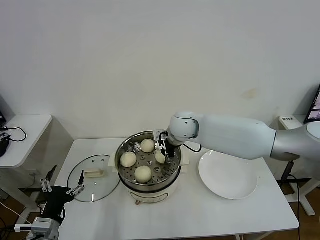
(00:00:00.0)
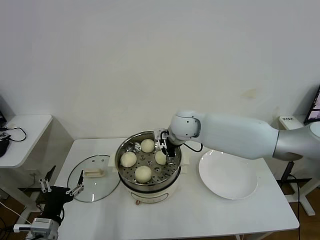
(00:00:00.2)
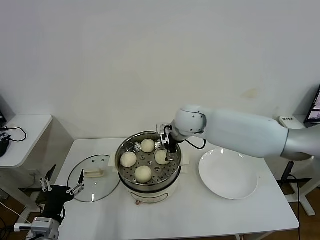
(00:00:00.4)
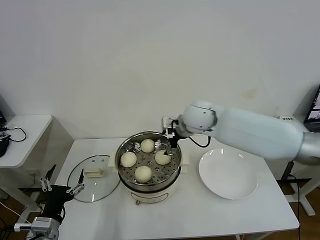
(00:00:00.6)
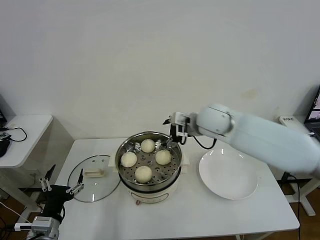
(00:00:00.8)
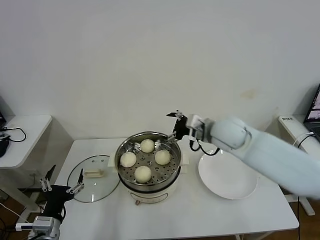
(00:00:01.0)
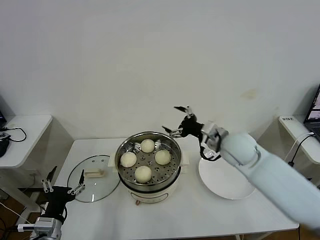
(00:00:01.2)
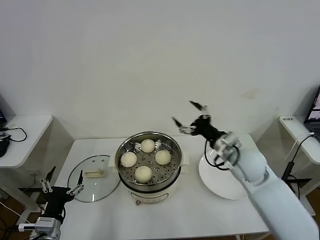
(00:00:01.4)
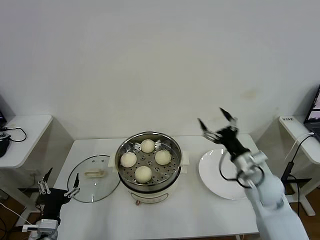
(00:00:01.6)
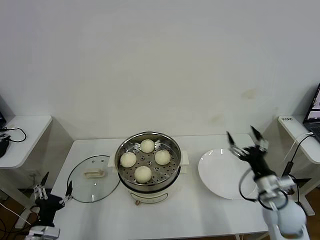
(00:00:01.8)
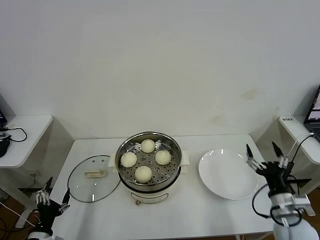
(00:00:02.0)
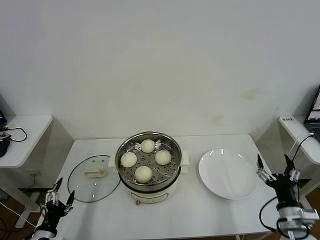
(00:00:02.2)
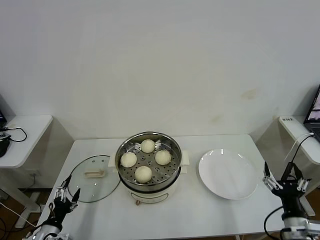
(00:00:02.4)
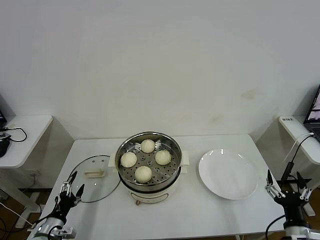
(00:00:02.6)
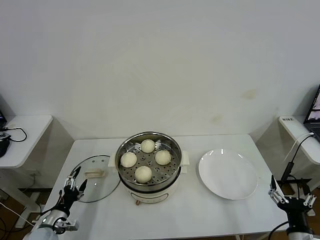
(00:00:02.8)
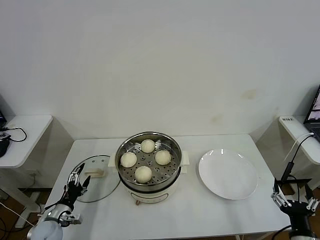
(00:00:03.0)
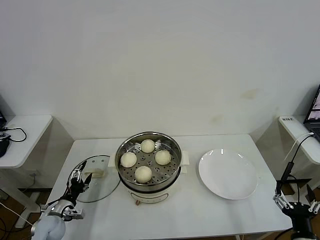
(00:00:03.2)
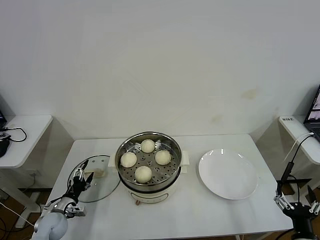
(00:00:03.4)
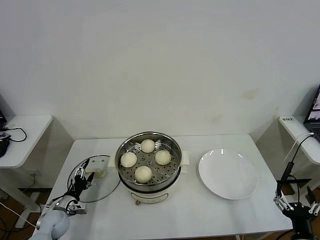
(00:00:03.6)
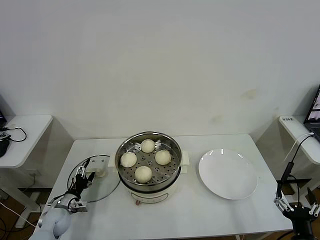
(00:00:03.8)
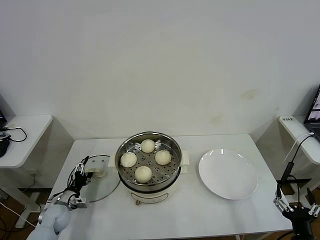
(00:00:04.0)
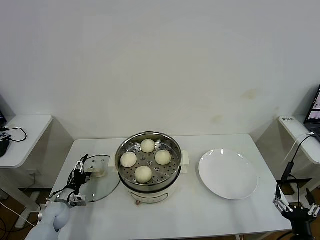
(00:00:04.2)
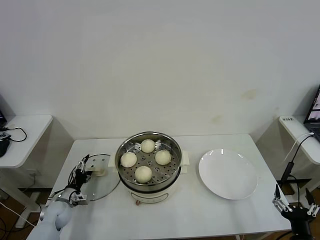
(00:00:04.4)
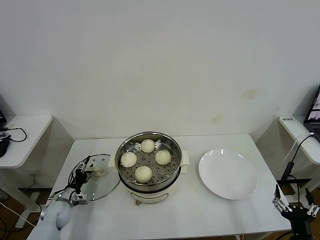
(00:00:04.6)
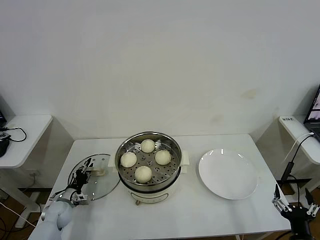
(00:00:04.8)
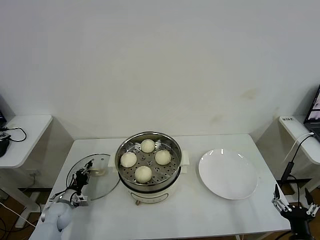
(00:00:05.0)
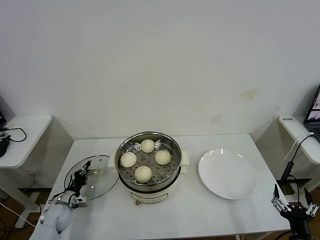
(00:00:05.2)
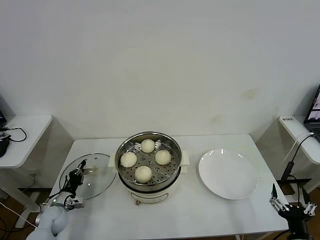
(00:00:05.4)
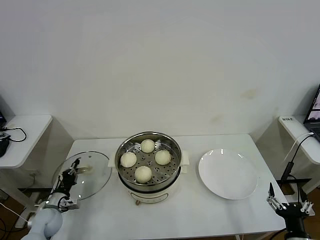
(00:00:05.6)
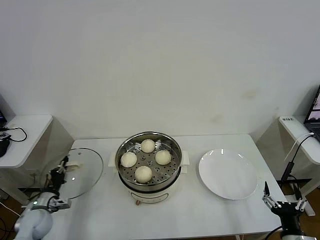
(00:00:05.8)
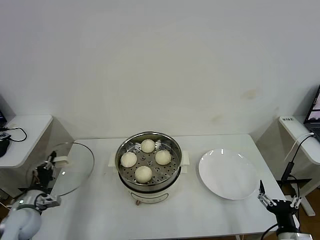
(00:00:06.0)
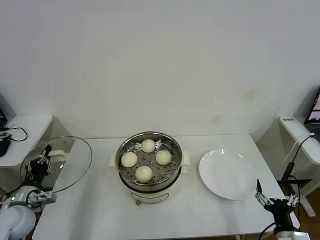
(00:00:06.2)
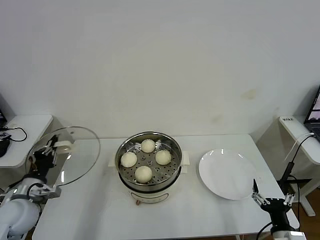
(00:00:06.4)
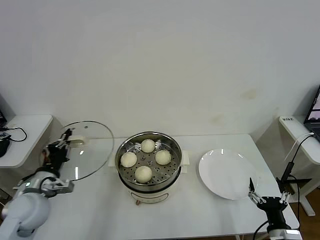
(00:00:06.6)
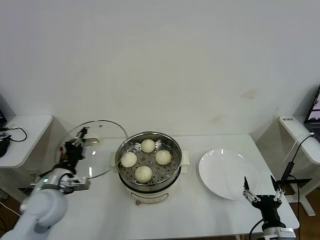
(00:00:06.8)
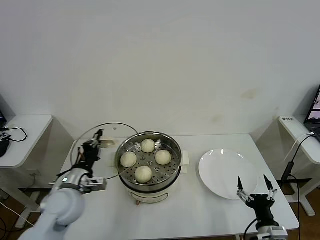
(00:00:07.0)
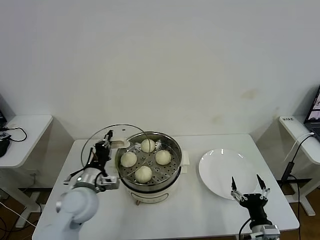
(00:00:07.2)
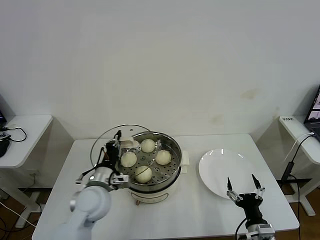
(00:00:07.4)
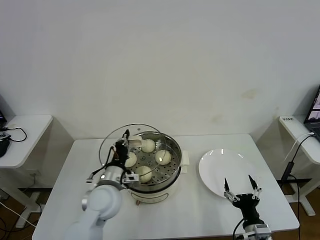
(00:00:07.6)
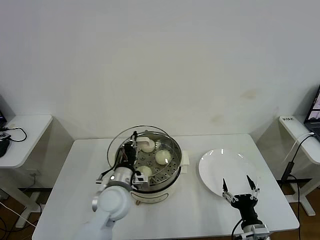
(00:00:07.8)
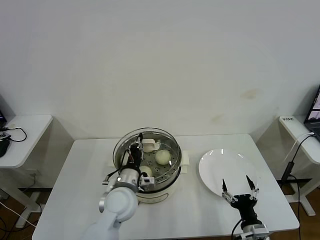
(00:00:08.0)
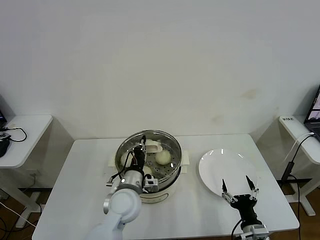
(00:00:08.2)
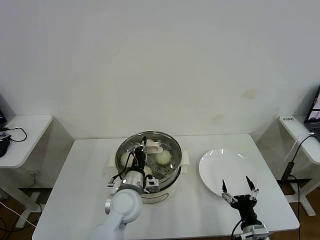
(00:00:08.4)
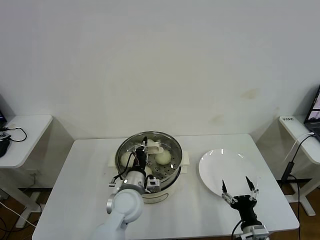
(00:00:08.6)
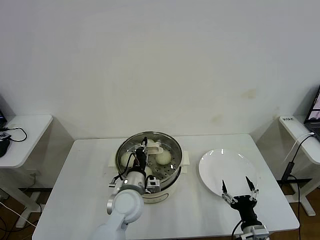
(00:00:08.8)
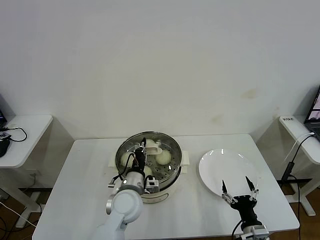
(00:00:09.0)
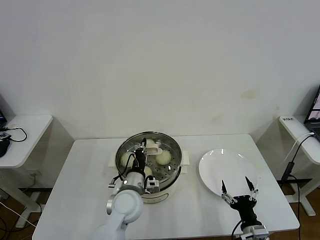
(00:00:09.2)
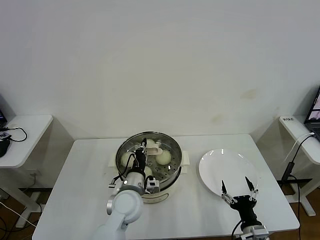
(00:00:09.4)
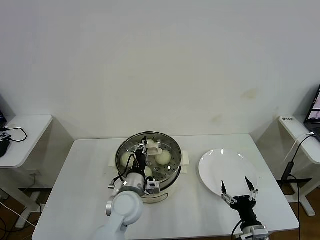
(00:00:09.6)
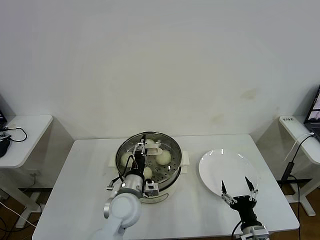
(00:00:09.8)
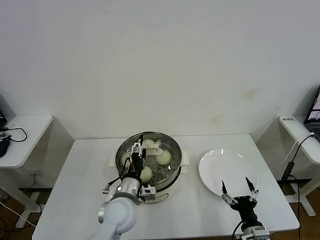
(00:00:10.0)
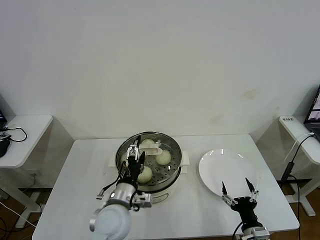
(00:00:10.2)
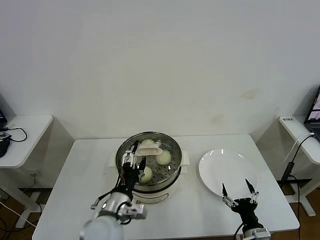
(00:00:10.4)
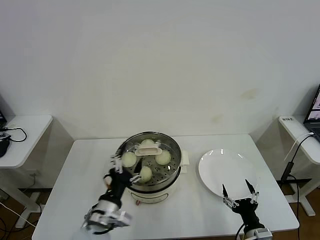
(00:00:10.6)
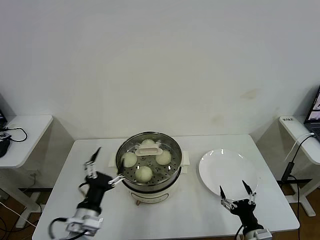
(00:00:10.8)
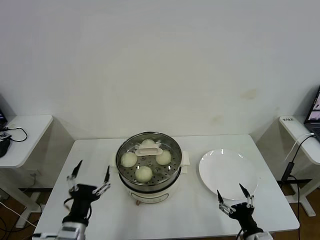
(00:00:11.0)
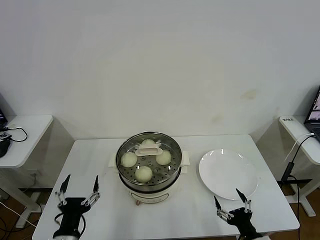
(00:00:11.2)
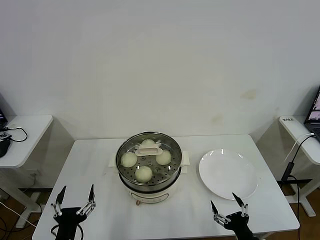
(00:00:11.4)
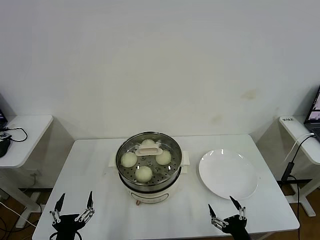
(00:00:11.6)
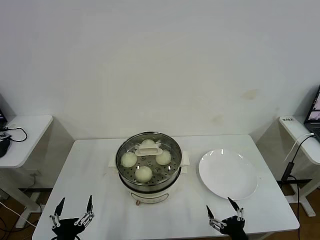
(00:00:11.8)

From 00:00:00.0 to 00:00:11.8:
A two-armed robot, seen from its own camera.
Task of the whole recording: take steamed baozi put them in steamer then cover it.
Step, from 00:00:00.4 to 00:00:05.0: Grasp the pot lid with left gripper.
Step, from 00:00:05.4 to 00:00:10.0: Place the pot lid on the steamer with left gripper.
From 00:00:00.0 to 00:00:01.4: The right gripper travels to the right and backward by some 20 cm, and opens.
From 00:00:01.4 to 00:00:03.0: The right gripper goes about 35 cm backward, downward and to the right; the left gripper goes some 20 cm downward, forward and to the left.
From 00:00:03.0 to 00:00:04.4: The left gripper goes roughly 10 cm forward.
From 00:00:04.4 to 00:00:06.0: The left gripper heads upward and backward, covering some 10 cm, and closes its fingers.
From 00:00:06.0 to 00:00:07.4: The left gripper travels to the right and upward by about 25 cm, while the right gripper shifts roughly 5 cm to the left.
From 00:00:07.4 to 00:00:08.8: The left gripper shifts some 10 cm to the right.
From 00:00:08.8 to 00:00:10.4: The left gripper moves backward, some 10 cm, and opens.
From 00:00:10.4 to 00:00:11.8: The right gripper shifts by roughly 5 cm; the left gripper shifts about 20 cm backward and to the left.
